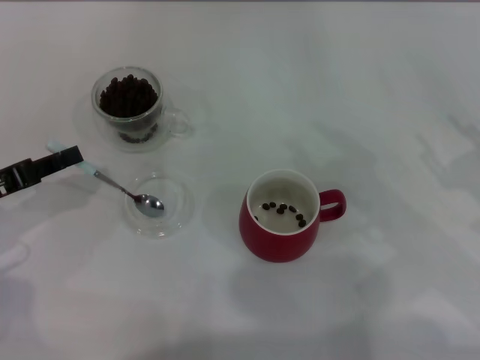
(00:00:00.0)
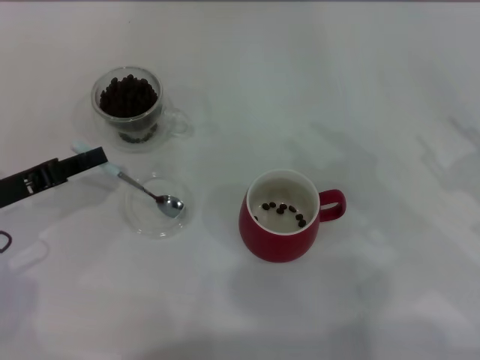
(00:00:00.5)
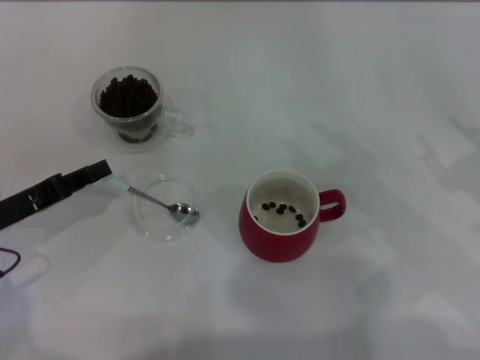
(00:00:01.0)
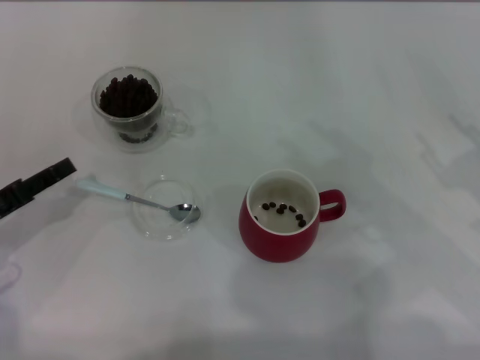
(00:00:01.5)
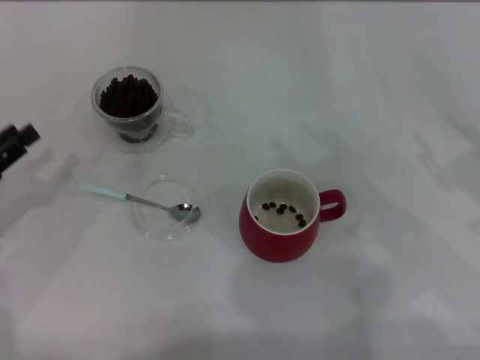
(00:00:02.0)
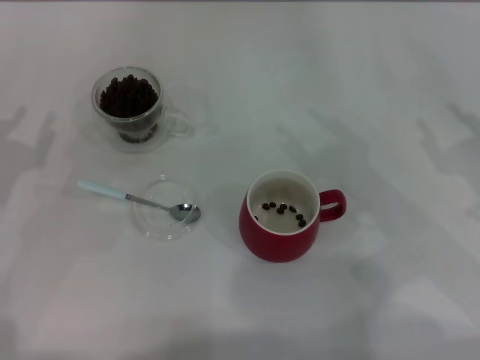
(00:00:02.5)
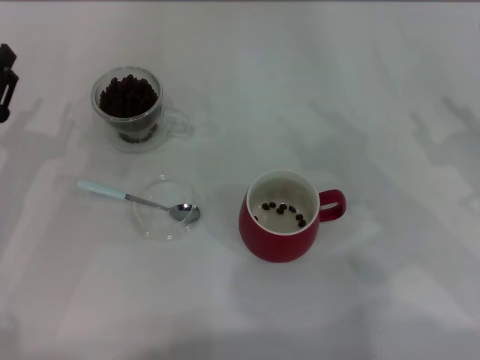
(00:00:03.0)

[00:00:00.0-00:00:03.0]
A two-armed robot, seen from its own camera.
Task of the whole recording: Use a blue spoon to take out the coffee beans from the glass and pour them into the red cup.
00:00:00.0 to 00:00:01.5: The left gripper opens its fingers.
00:00:01.5 to 00:00:03.0: The left gripper opens up.
